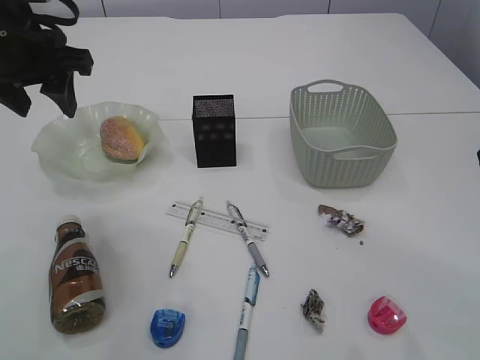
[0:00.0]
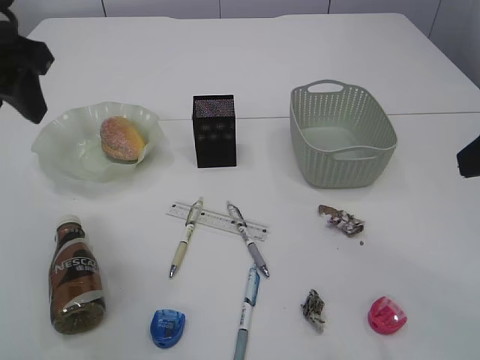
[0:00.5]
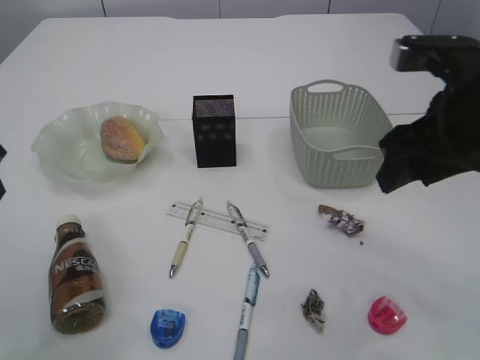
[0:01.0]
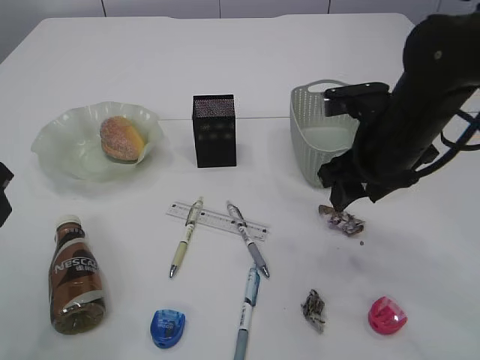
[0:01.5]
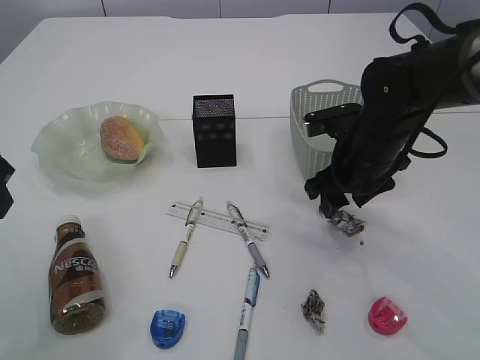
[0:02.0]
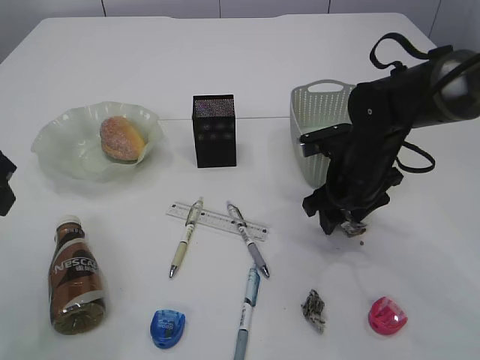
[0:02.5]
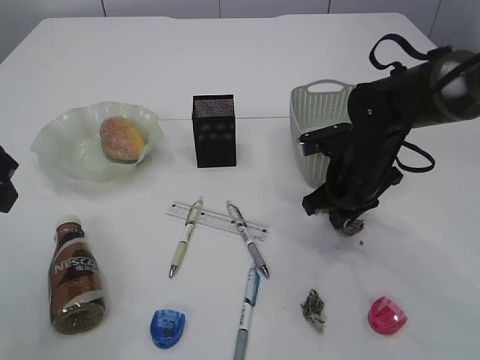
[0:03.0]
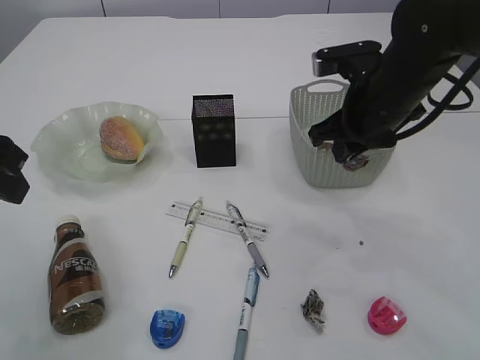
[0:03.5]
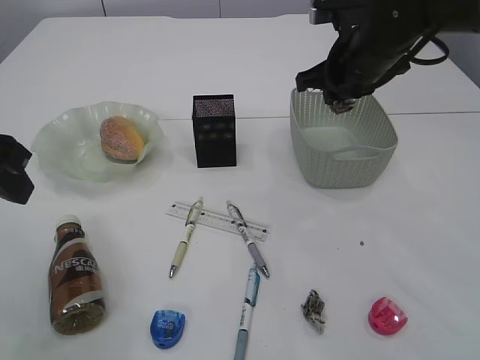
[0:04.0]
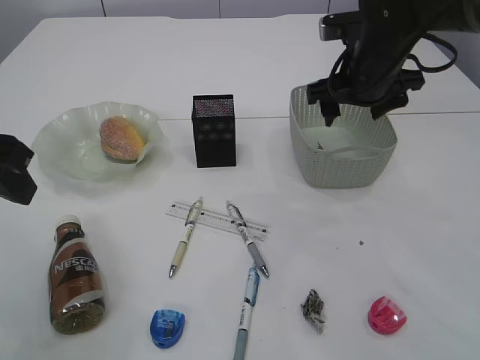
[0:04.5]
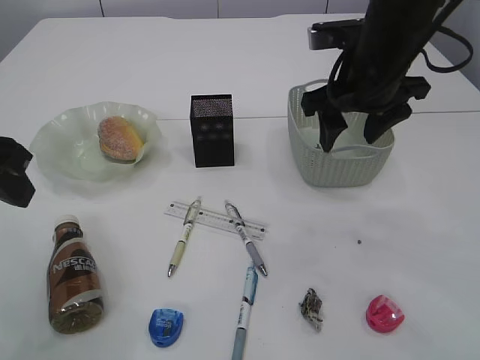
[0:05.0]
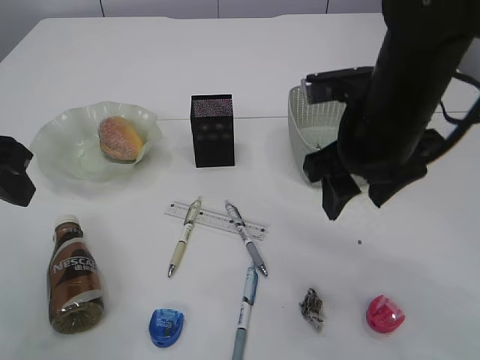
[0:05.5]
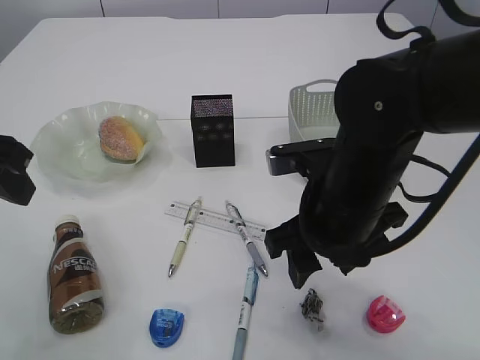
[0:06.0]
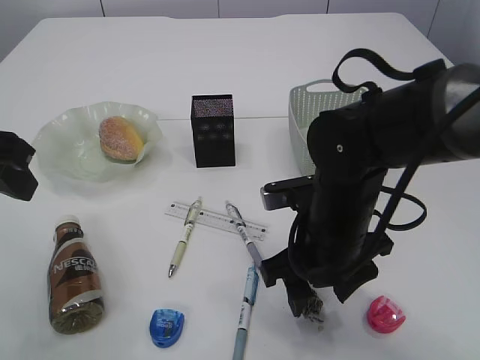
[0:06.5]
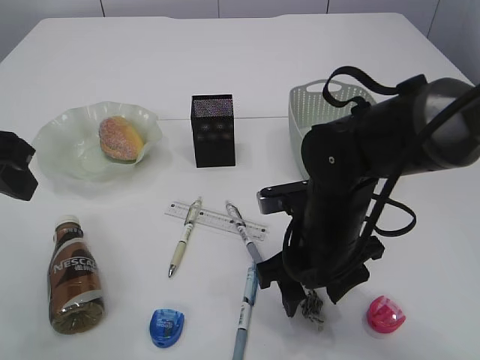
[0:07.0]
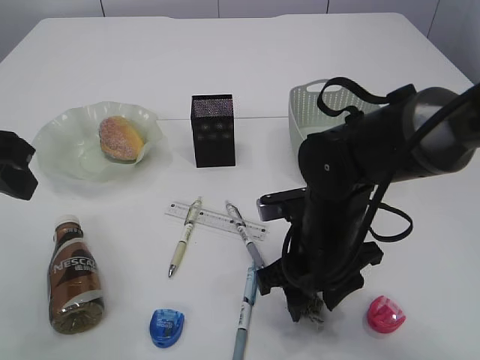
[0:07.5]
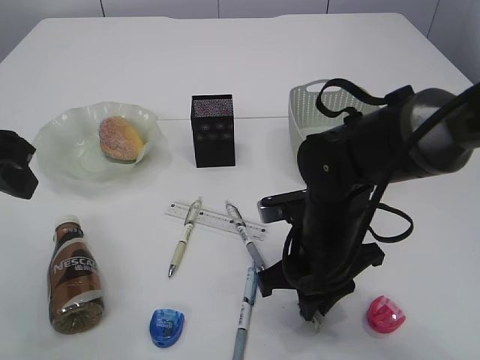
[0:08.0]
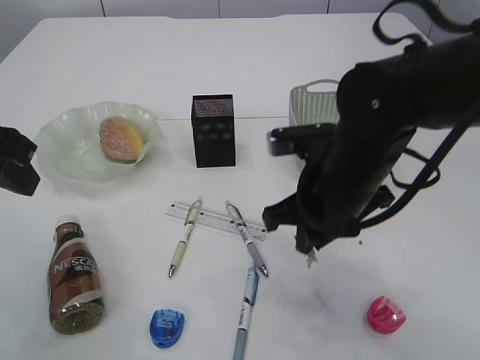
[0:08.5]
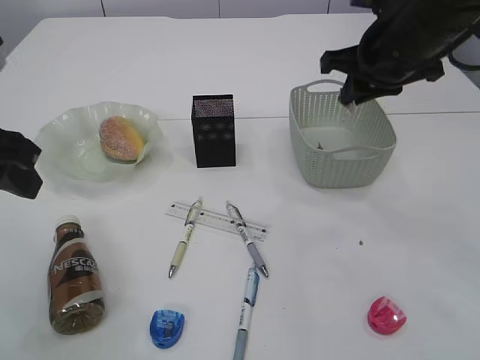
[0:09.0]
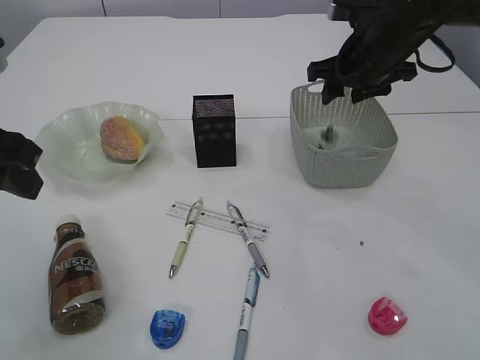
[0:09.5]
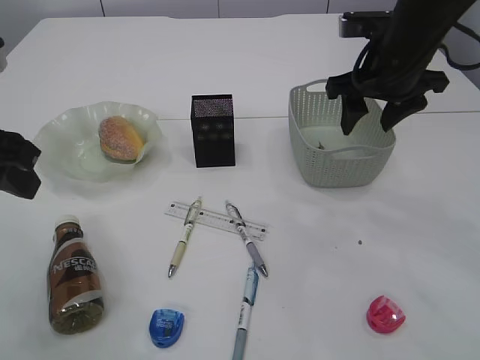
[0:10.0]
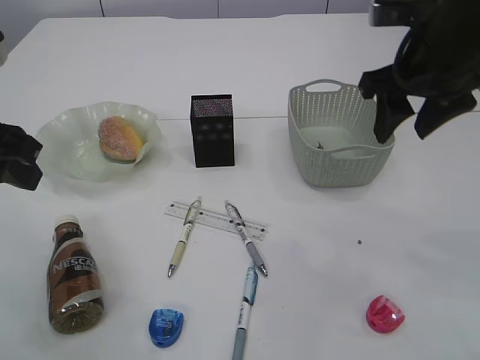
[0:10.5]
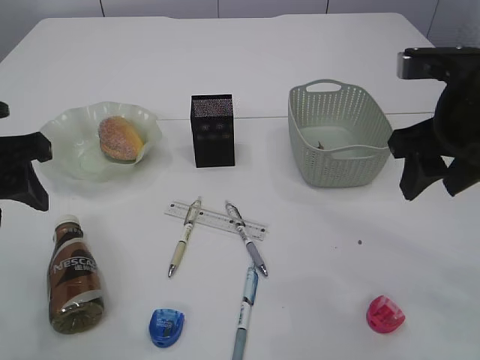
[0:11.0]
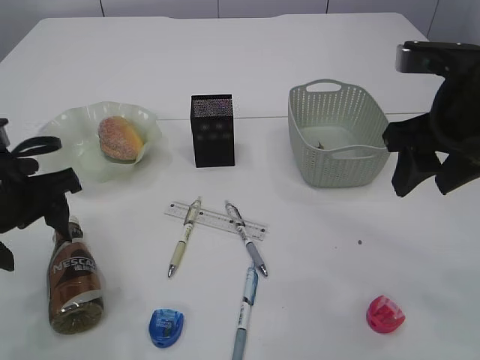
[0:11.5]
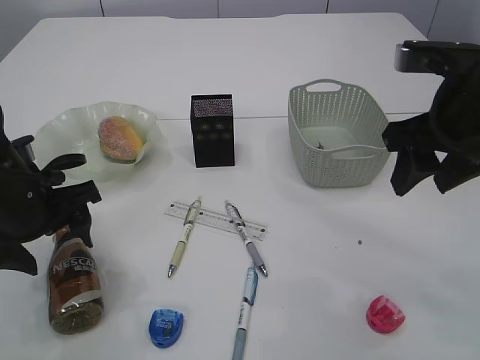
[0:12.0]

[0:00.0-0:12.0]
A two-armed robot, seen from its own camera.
Step, 0:00.0 to 0:03.0: Pick up the waste paper.
Step, 0:03.5 to 0:04.5: Place the waste paper in the basket.
Step, 0:05.0 to 0:08.0: Pick up the waste paper.
Step, 0:08.5 to 0:09.5: Place the waste paper in the basket.
0:00.0 to 0:02.0: The right gripper shifts approximately 25 cm forward, downward and to the left. The left gripper is displaced backward by approximately 10 cm.
0:02.0 to 0:04.0: The right gripper moves upward and forward, about 10 cm, and closes up.
0:04.0 to 0:06.0: The right gripper shifts some 15 cm backward, and opens its fingers.
0:06.0 to 0:08.0: The right gripper is displaced downward by approximately 10 cm, and closes up.
0:08.0 to 0:10.0: The right gripper goes roughly 20 cm upward, forward and to the right, and opens.
0:10.0 to 0:12.0: The left gripper moves downward, roughly 10 cm, and opens up. Meanwhile the right gripper is displaced backward by roughly 15 cm.

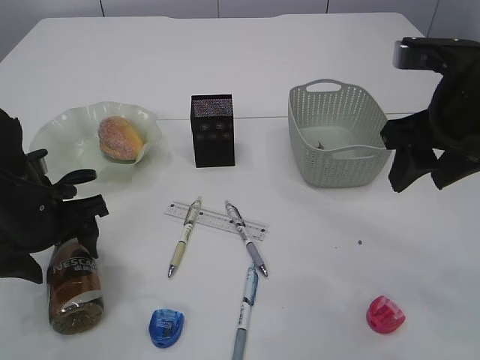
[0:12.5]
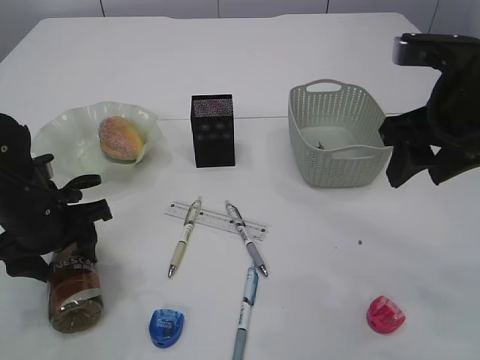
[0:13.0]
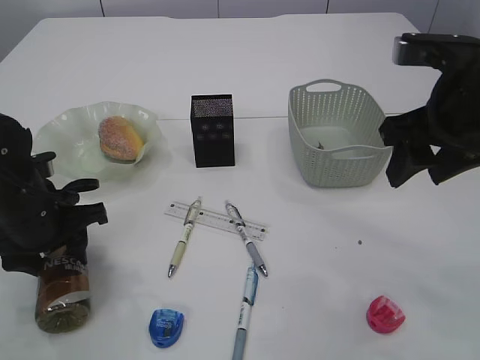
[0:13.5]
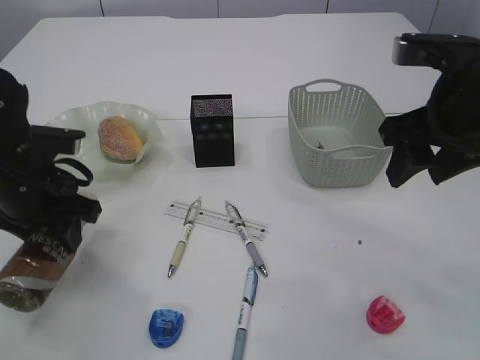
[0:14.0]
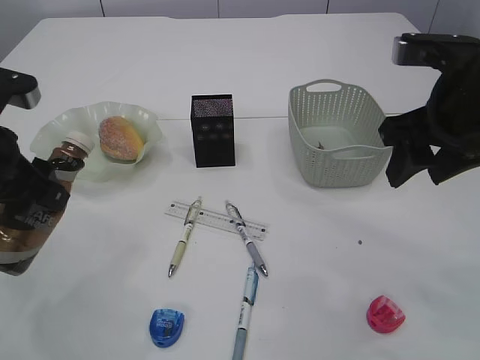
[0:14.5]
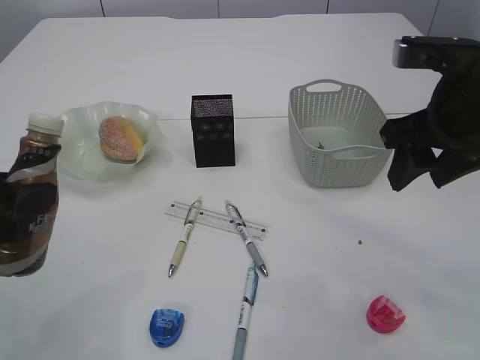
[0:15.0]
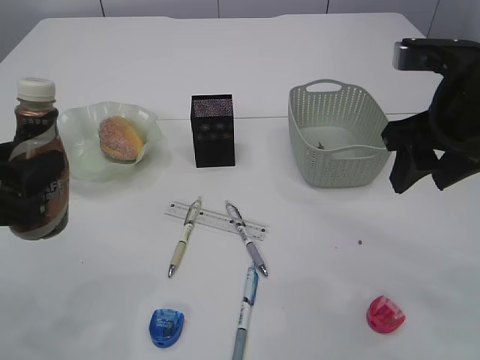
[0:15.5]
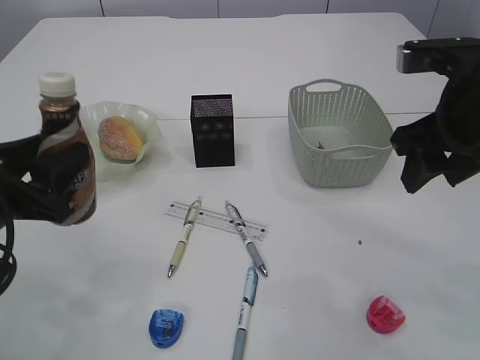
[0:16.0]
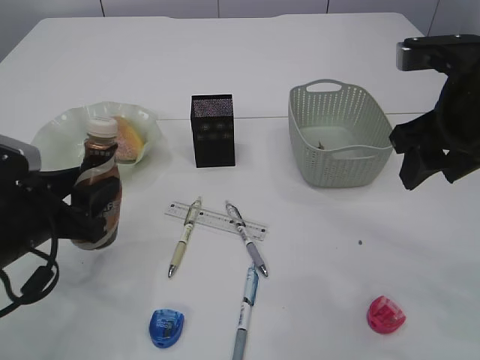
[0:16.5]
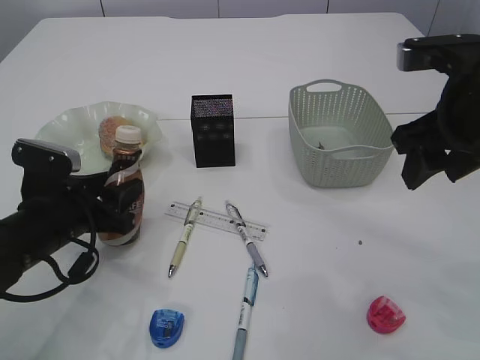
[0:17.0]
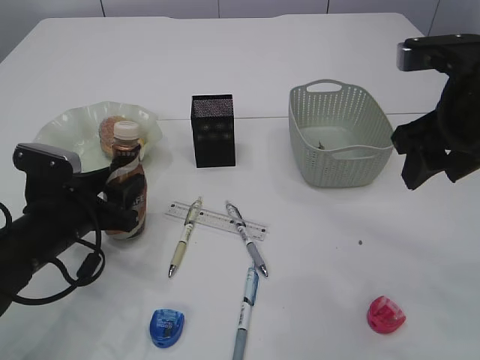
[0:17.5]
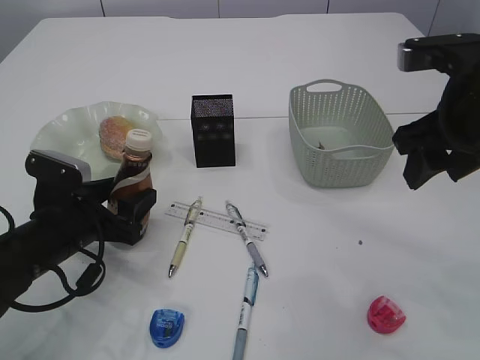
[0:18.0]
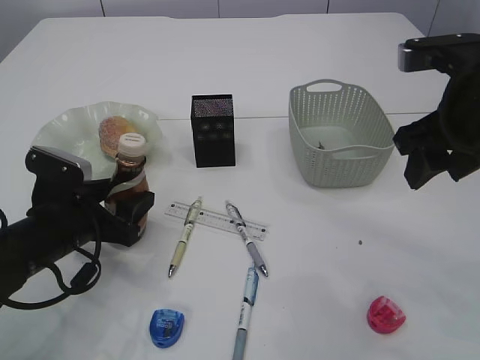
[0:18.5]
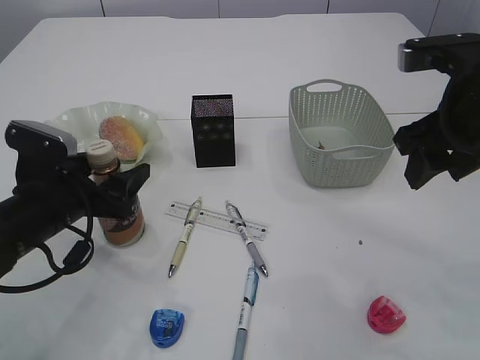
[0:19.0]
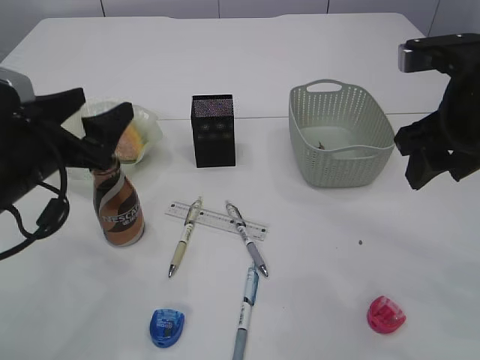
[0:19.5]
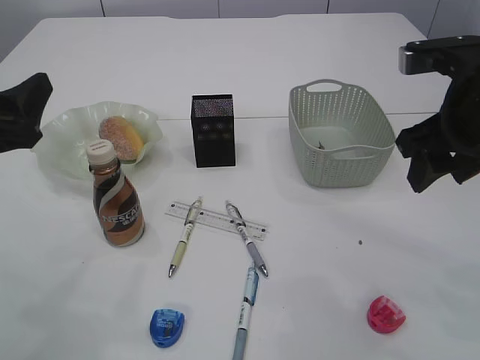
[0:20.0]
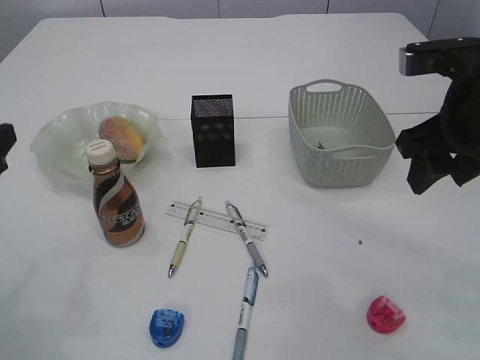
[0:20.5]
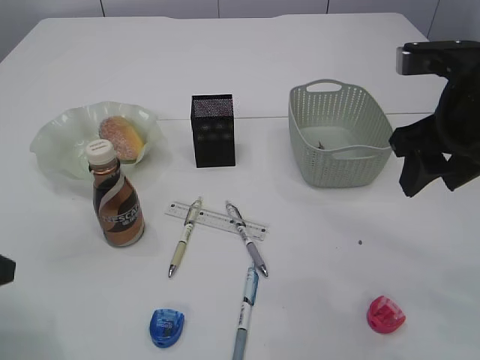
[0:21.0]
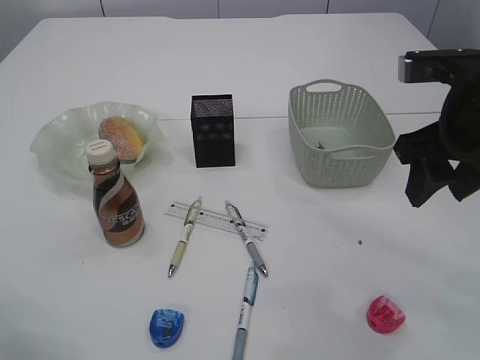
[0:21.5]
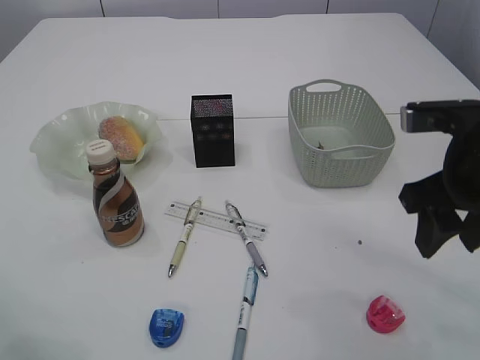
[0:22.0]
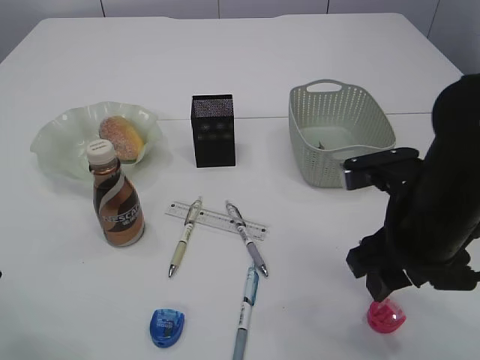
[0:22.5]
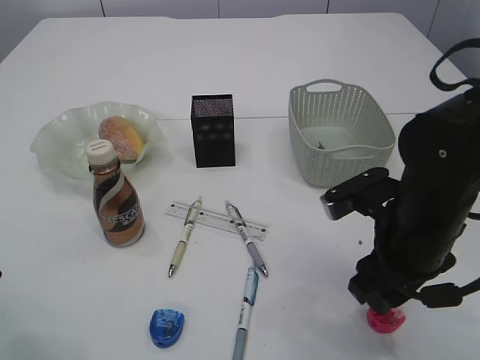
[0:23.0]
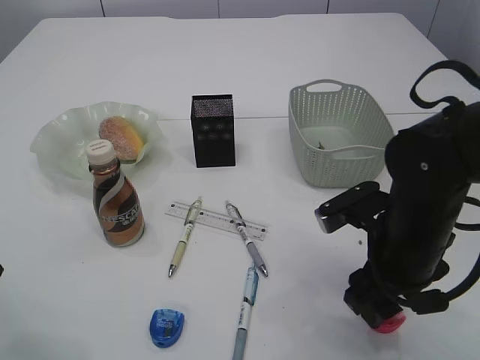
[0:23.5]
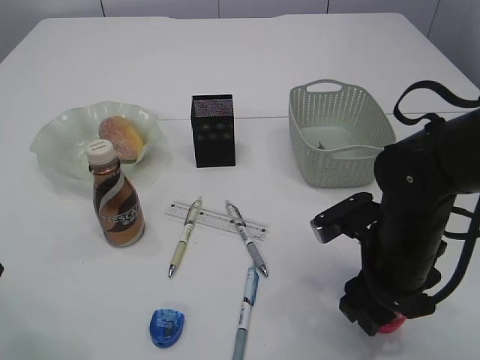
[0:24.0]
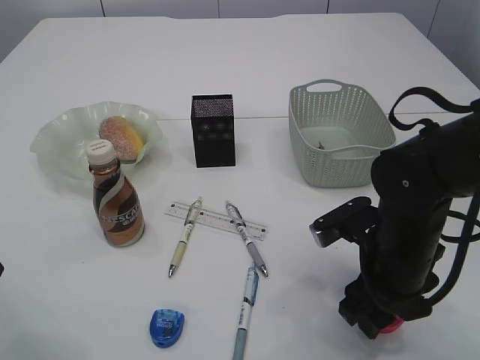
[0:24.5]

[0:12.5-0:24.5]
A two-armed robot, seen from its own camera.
Step, 0:14.5 to 0:19.5: Place the bottle.
0:12.5 to 0:14.5: The left gripper heads upward, covering some 10 cm, and closes its fingers.
0:14.5 to 0:16.5: The left gripper moves downward, approximately 10 cm.
0:16.5 to 0:18.5: The left gripper travels downward by some 5 cm, and opens.
0:18.5 to 0:20.5: The left gripper heads upward and to the left, covering roughly 15 cm.
0:20.5 to 0:22.5: The right gripper heads downward, covering roughly 10 cm.
0:22.5 to 0:24.5: The right gripper moves downward, about 10 cm.

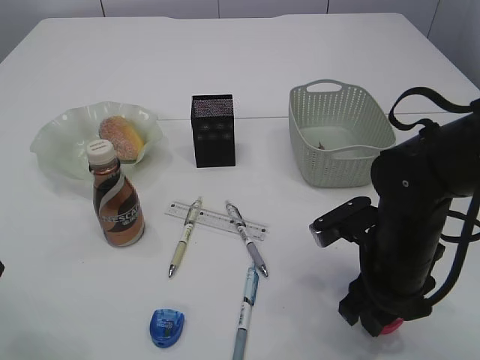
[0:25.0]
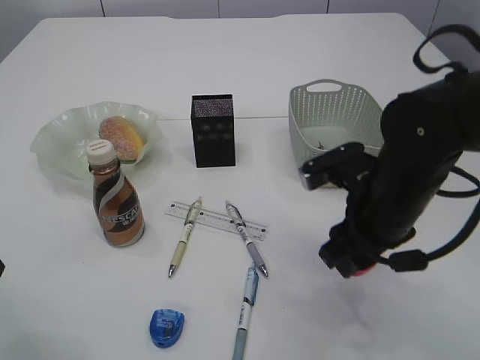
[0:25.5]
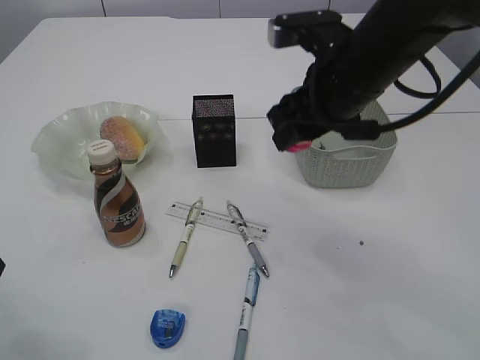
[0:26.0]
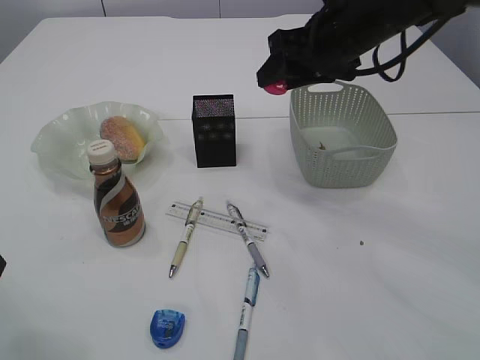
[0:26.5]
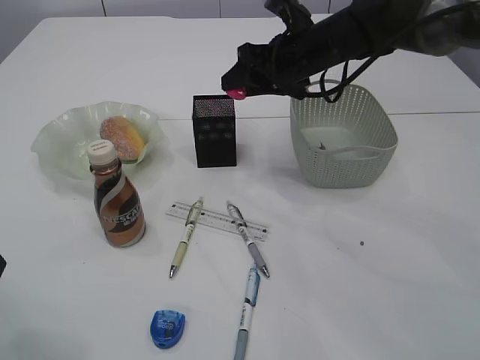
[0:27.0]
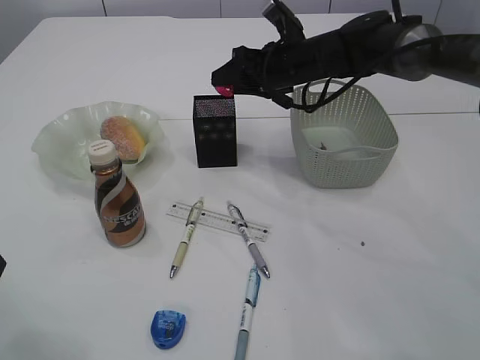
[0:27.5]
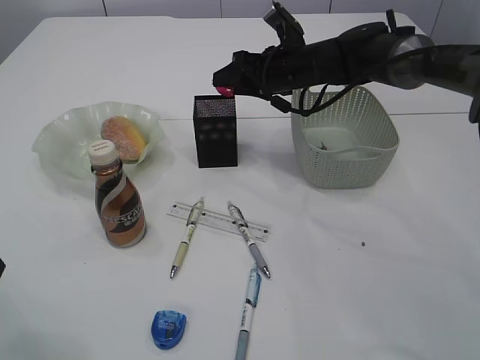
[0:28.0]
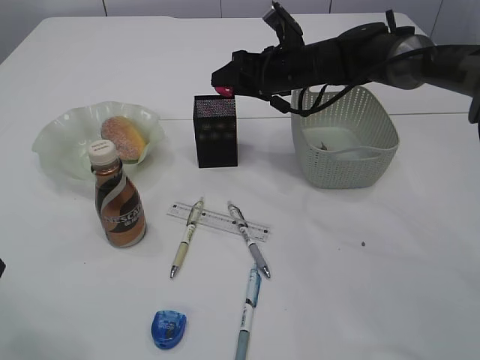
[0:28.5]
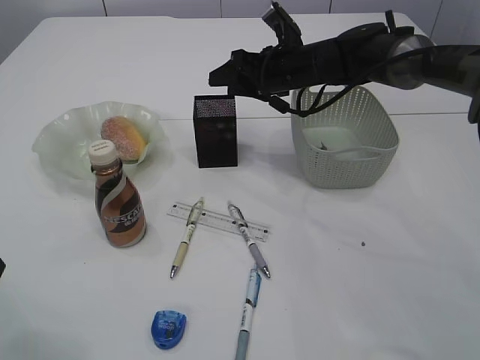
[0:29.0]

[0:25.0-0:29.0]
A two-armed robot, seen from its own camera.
Step, 0:25.5 to 0:28.5: Place the red pencil sharpener into the pen holder.
0:25.0 to 0:27.0: The right gripper travels forward and upward by some 25 cm.
0:27.0 to 0:29.0: The right gripper ends up about 5 cm from where it was.
